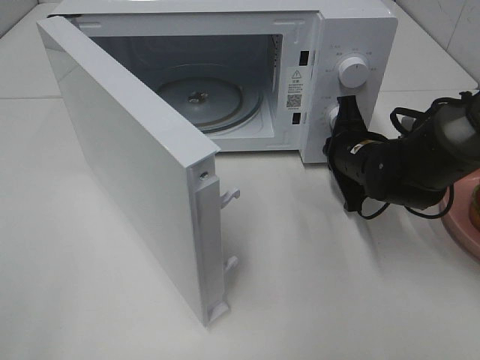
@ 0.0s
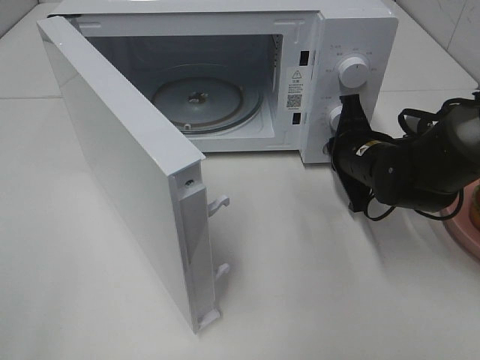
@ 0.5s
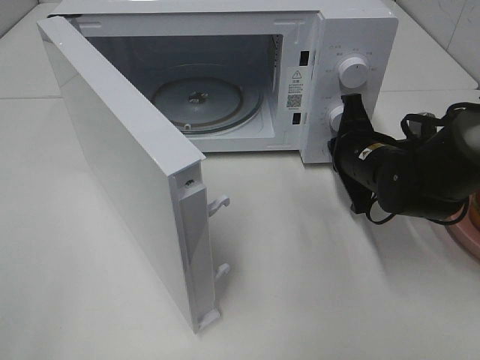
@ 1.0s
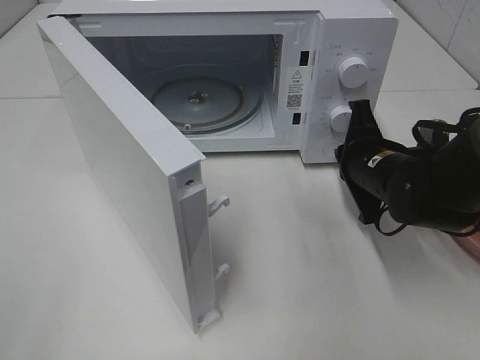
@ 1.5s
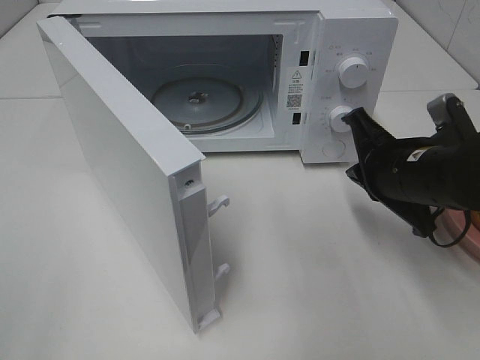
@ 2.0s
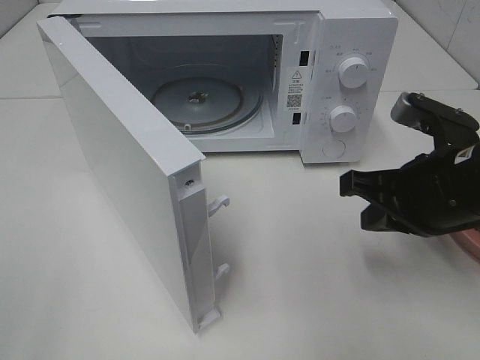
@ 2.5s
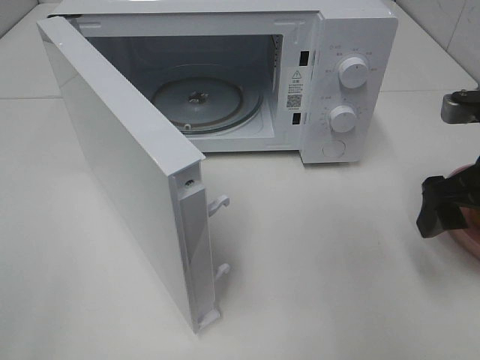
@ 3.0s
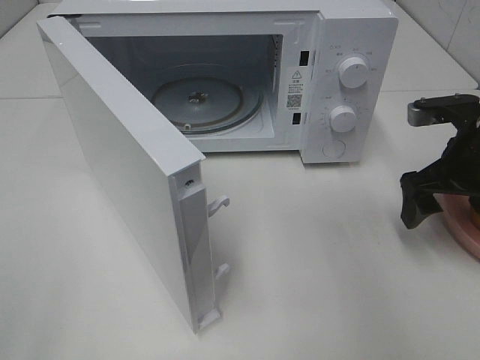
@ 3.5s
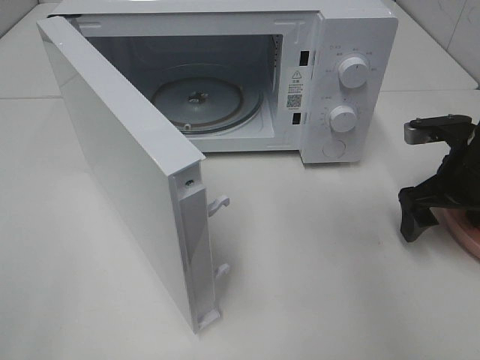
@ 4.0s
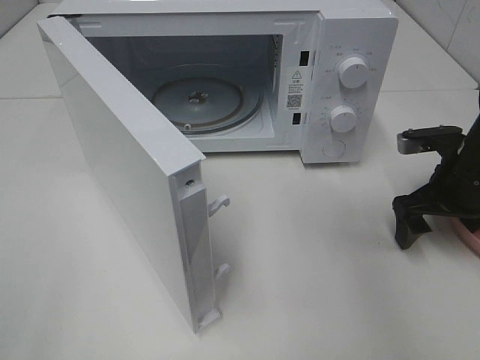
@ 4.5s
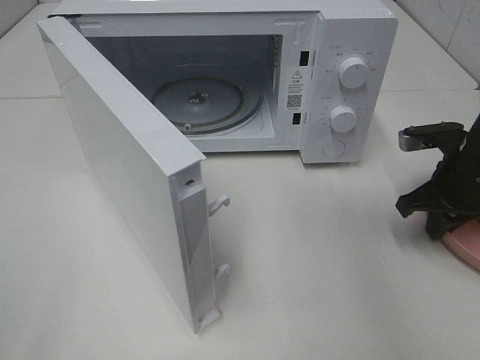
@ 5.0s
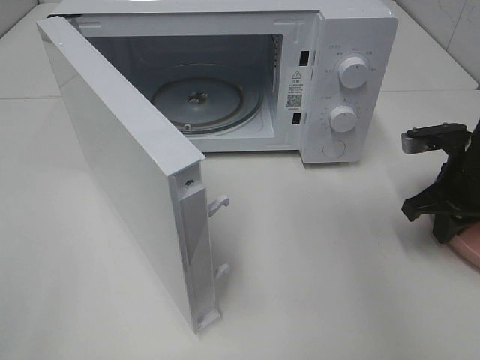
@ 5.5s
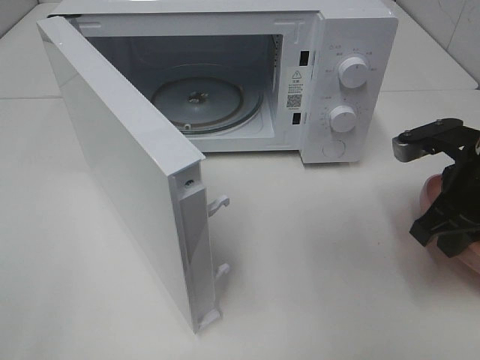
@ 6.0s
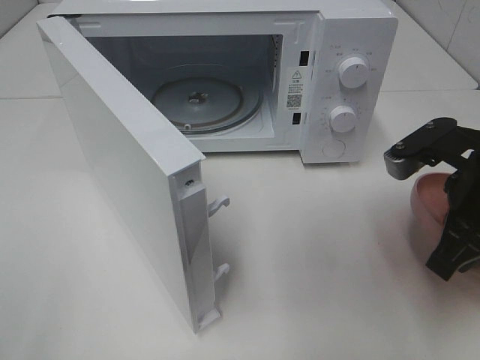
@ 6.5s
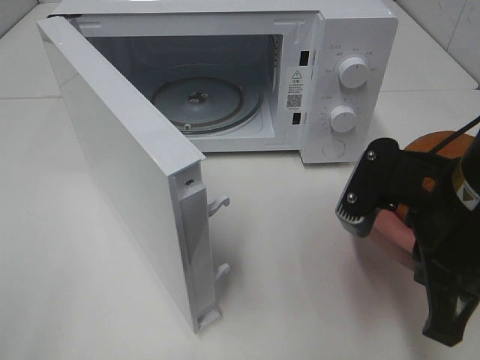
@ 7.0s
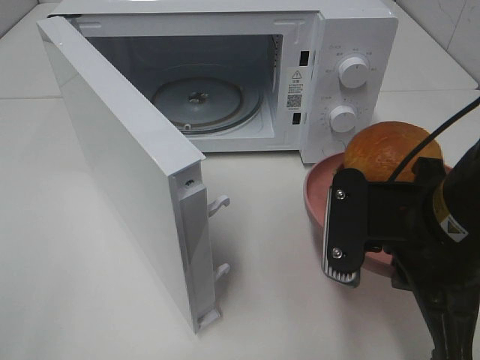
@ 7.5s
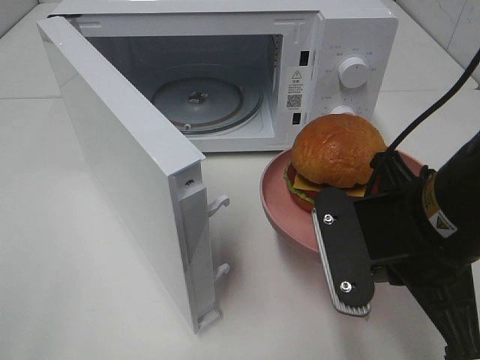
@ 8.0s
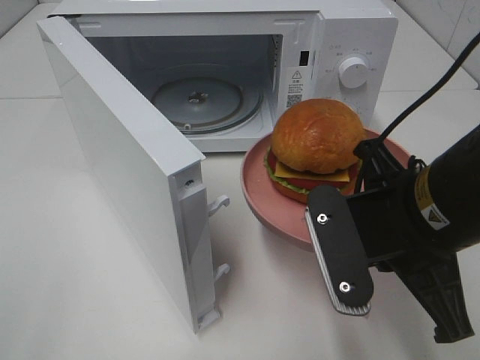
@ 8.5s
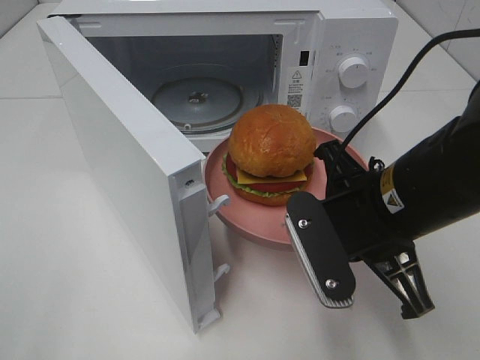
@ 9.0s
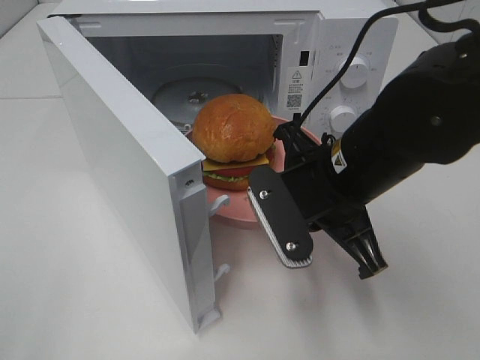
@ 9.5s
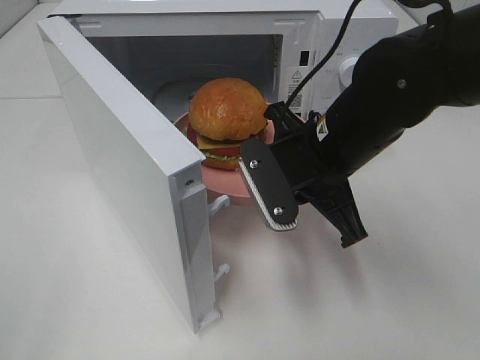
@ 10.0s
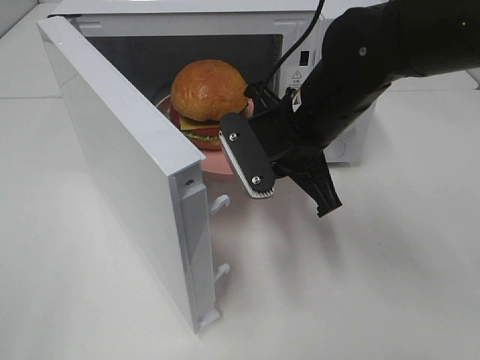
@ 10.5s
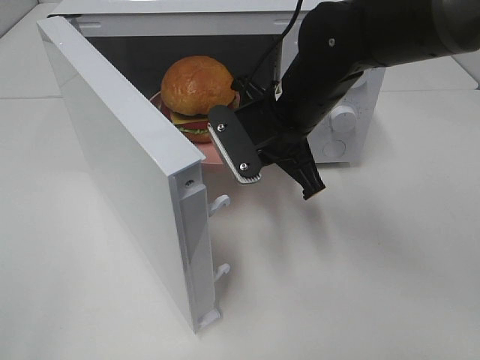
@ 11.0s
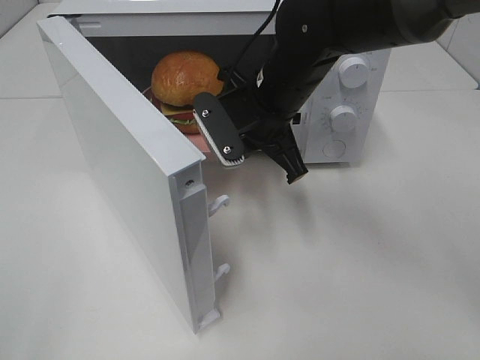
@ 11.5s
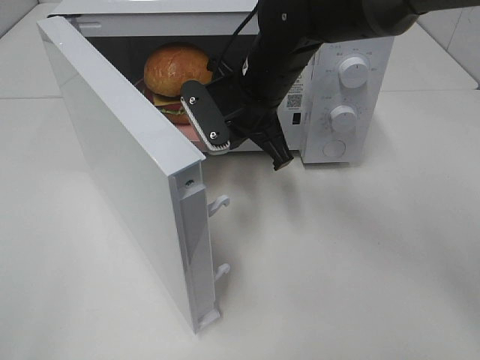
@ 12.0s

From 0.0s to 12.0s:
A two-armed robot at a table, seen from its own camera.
Task of the whole recording: Heat the burger.
Step, from 1.5s to 5.0s: Right hand: grab the plate with the hamburger.
From 0.0s to 2.0s: The right gripper heads backward and upward, covering about 10 cm.
From 2.0s to 4.0s: The right gripper heads to the right, covering some 10 cm, and opens.
From 4.0s to 6.0s: The right gripper shifts by some 5 cm, and closes.
From 6.0s to 8.0s: The right gripper travels to the left and backward by roughly 15 cm.
From 8.0s to 10.0s: The right gripper goes some 10 cm forward and to the left.
From 10.0s to 12.0s: The right gripper travels forward and to the left by about 10 cm.

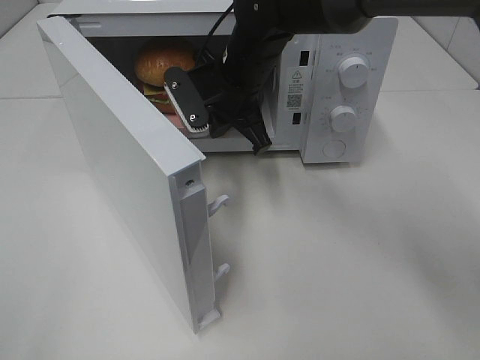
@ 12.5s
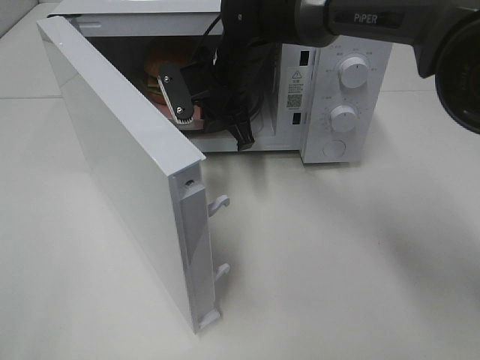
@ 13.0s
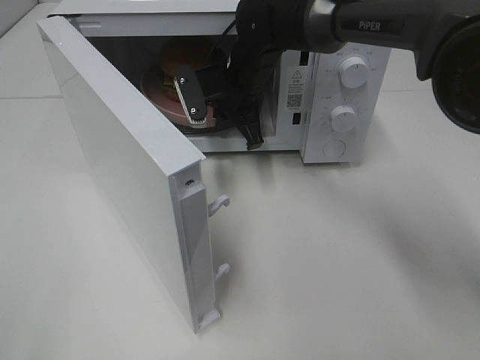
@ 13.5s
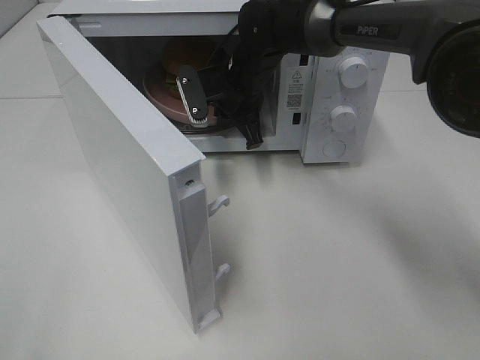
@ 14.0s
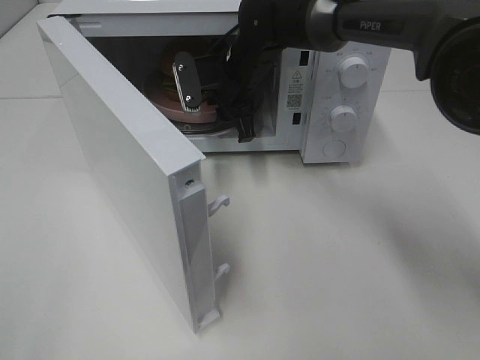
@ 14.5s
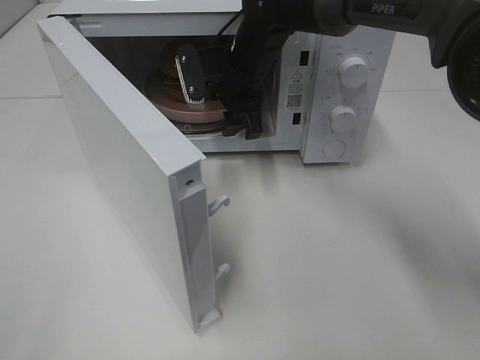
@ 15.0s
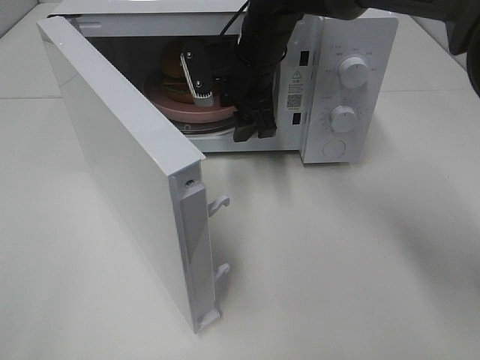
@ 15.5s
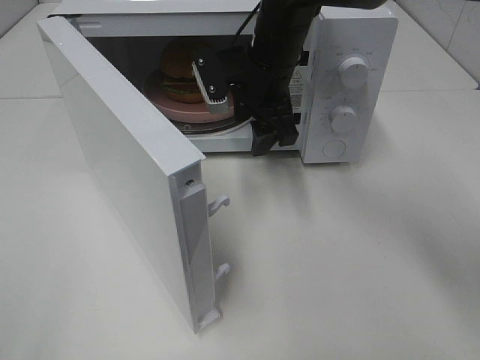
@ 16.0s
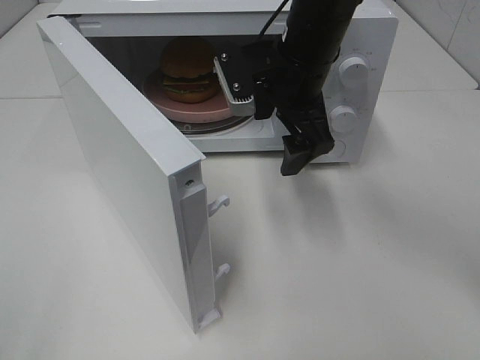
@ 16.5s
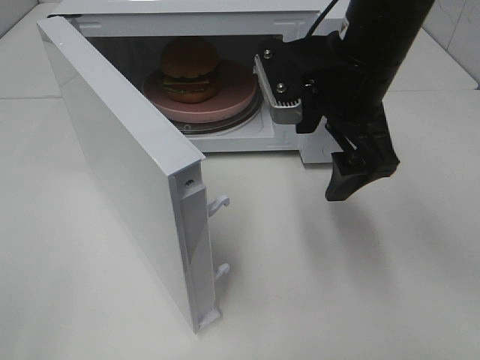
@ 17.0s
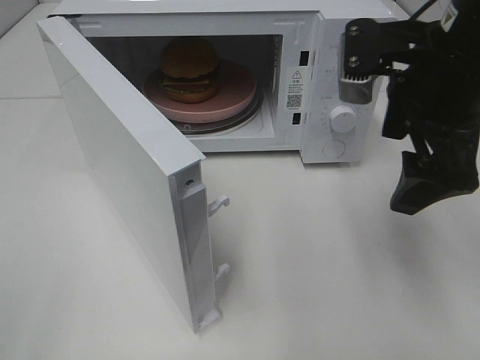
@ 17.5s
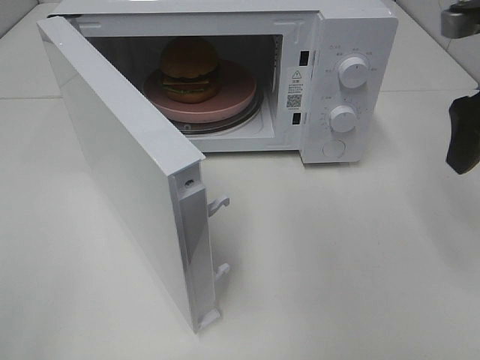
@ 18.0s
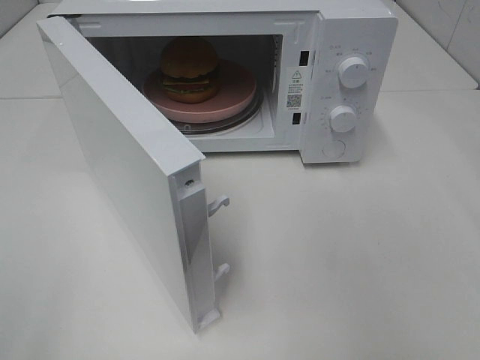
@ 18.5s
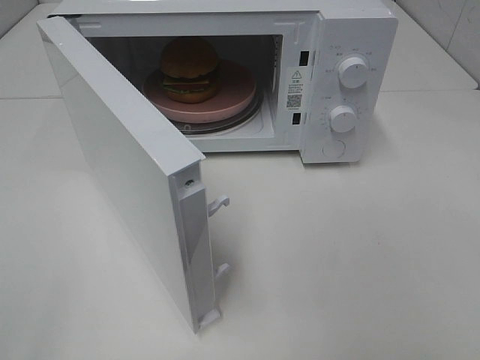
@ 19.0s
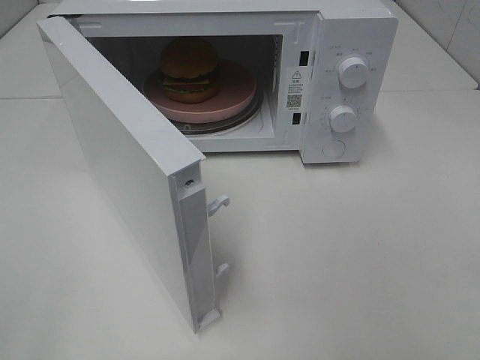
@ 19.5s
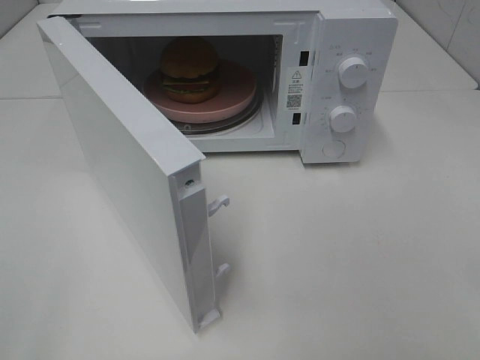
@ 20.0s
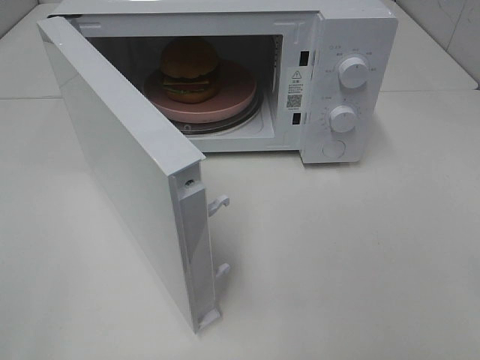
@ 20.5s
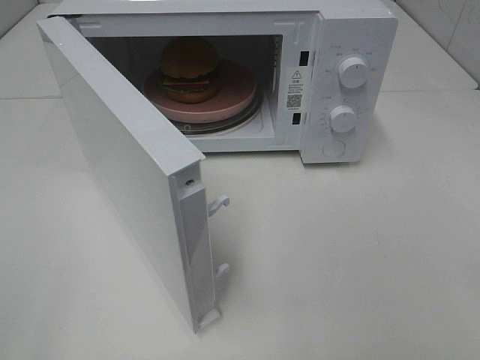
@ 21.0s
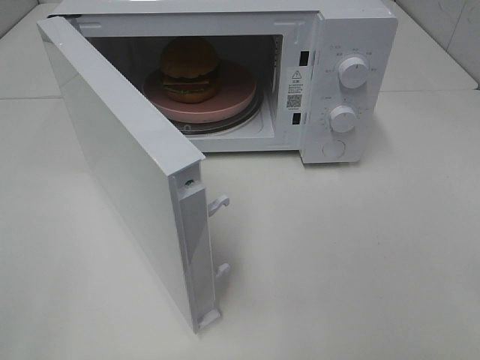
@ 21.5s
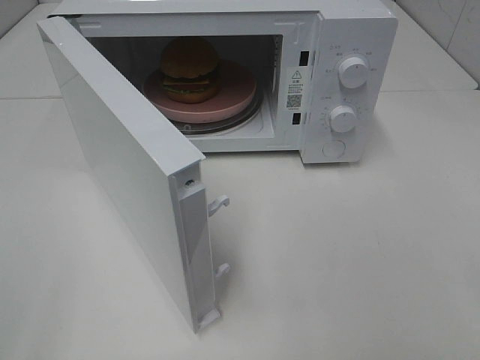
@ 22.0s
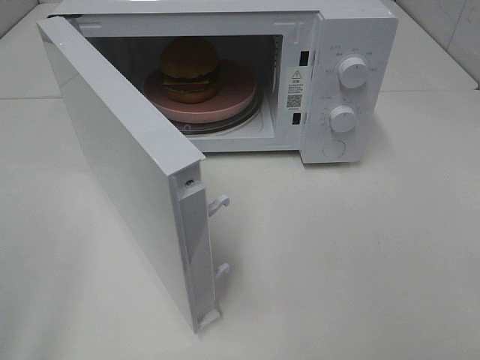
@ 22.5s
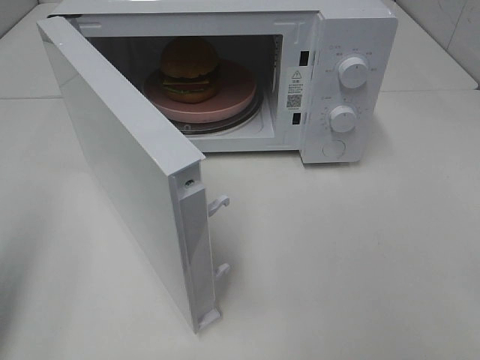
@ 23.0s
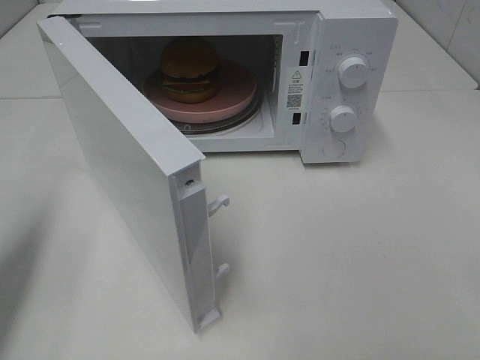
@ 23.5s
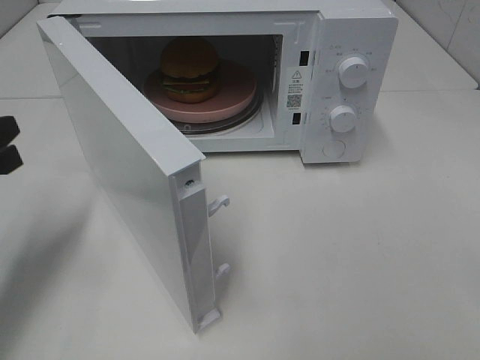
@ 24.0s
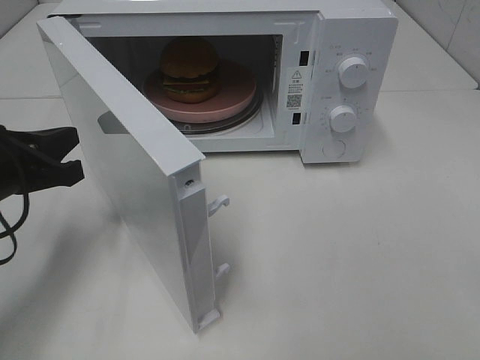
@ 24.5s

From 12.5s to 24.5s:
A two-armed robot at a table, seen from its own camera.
Task of the whole recording: Heat the burger.
From 12.5s to 14.5s: The right gripper is displaced forward by roughly 5 cm, and opens up.
From 14.5s to 16.5s: The right gripper is displaced backward, upward and to the right by some 15 cm, and opens its fingers.
From 16.5s to 18.5s: The right gripper goes some 30 cm to the right and backward.
From 22.5s to 24.5s: The left gripper goes approximately 25 cm forward and downward, and closes up.

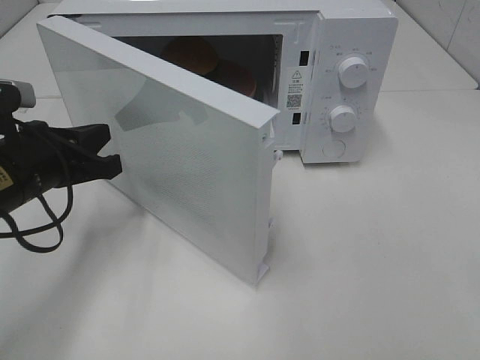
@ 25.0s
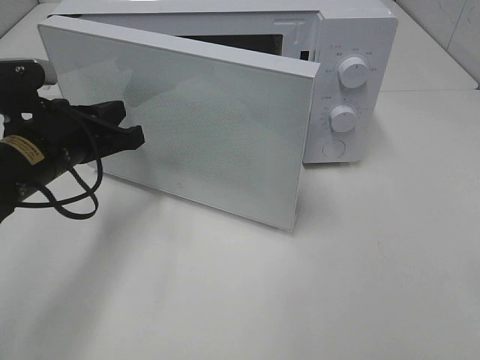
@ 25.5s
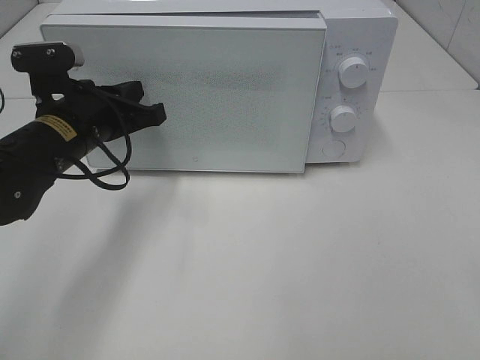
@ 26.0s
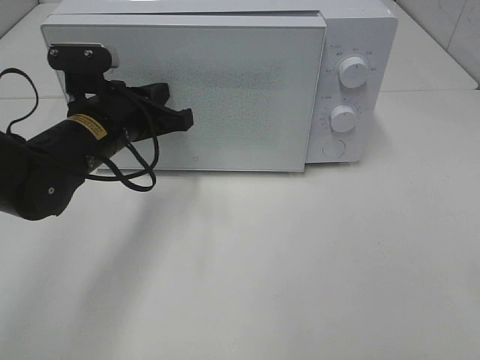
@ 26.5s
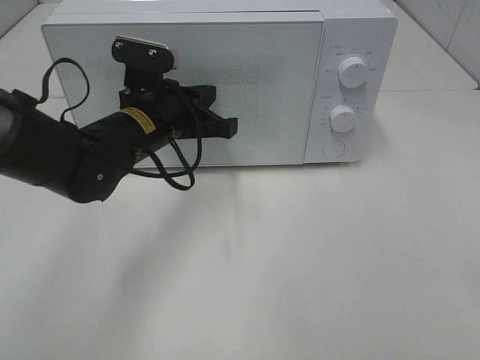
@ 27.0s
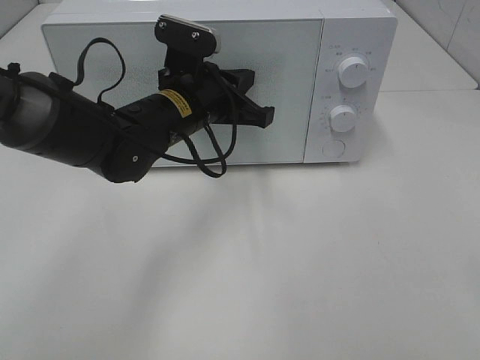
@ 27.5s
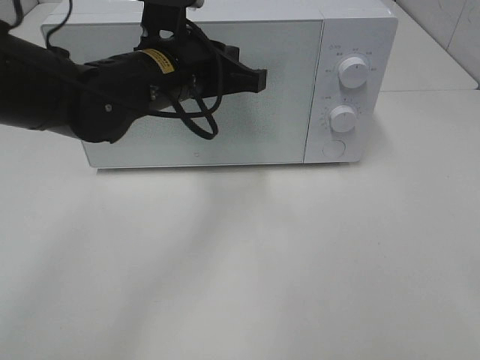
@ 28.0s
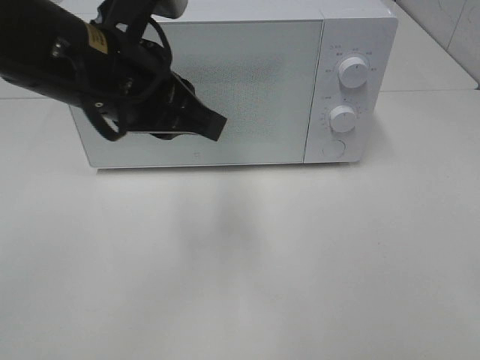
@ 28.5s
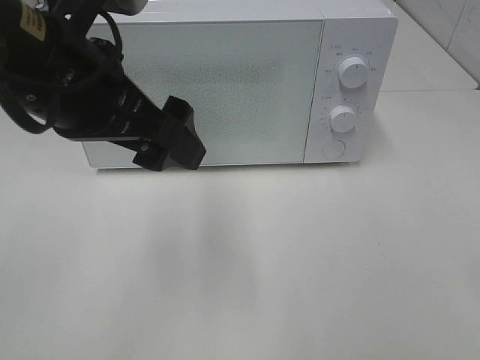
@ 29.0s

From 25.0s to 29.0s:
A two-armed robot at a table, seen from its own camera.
Task of the whole recording: Heat the burger.
Step, from 25.0s to 27.5s: Left hand: close the microwave door.
From 25.0s to 27.0s: The left gripper travels to the right and forward by about 15 cm.
From 27.0s to 29.0s: The left gripper is displaced upward and backward by approximately 20 cm, and opens.
